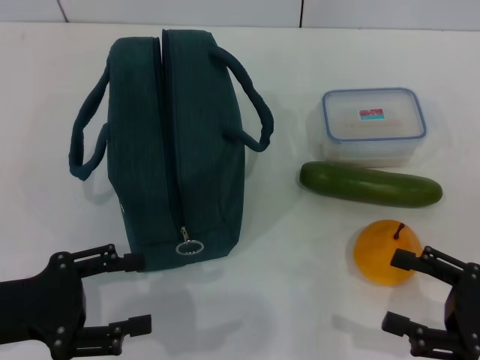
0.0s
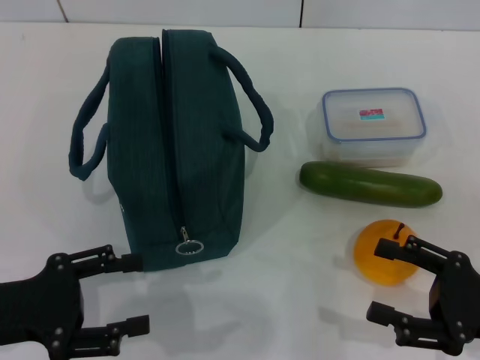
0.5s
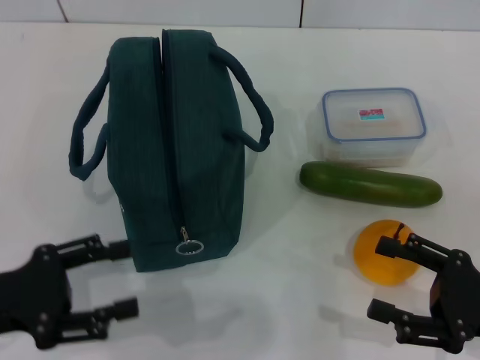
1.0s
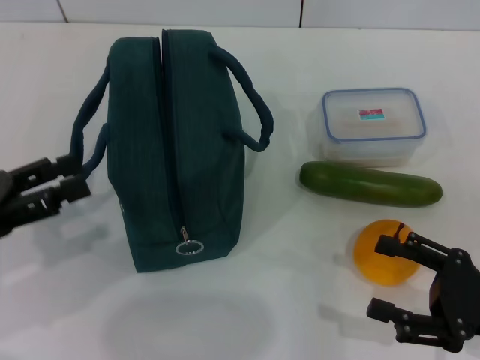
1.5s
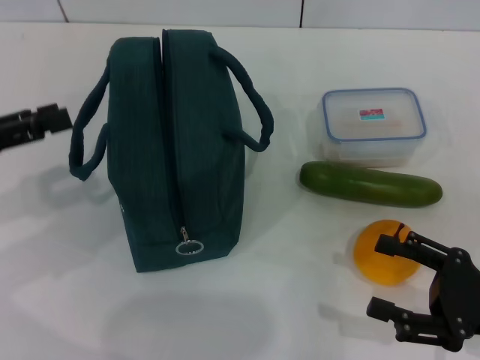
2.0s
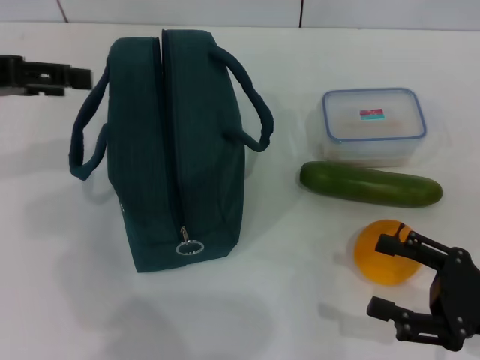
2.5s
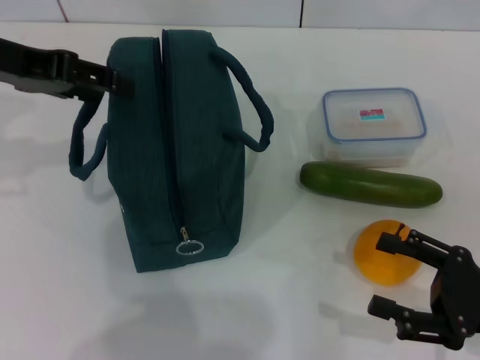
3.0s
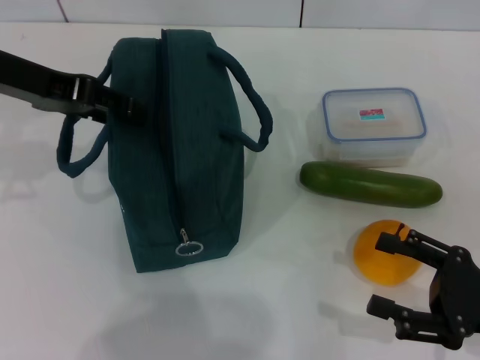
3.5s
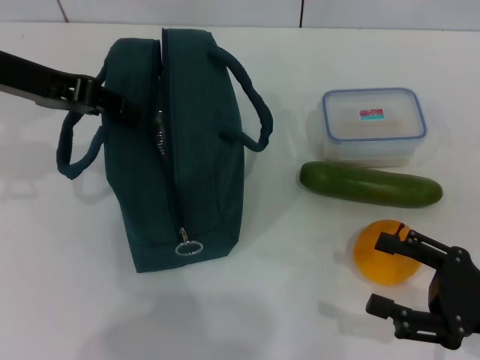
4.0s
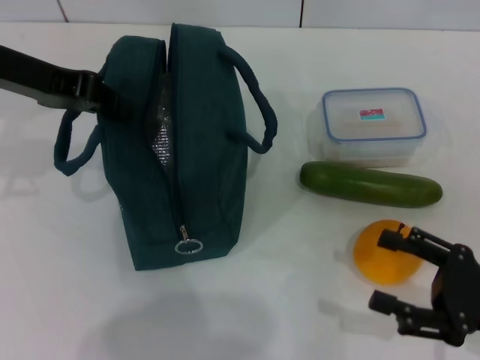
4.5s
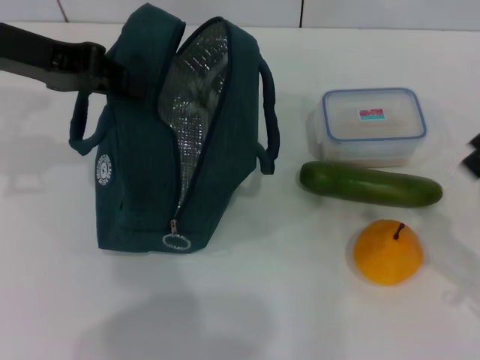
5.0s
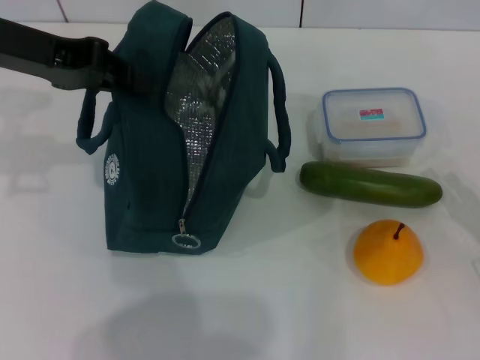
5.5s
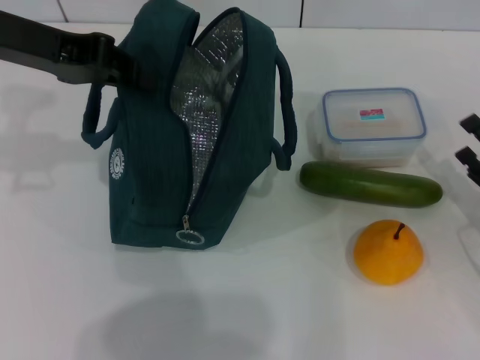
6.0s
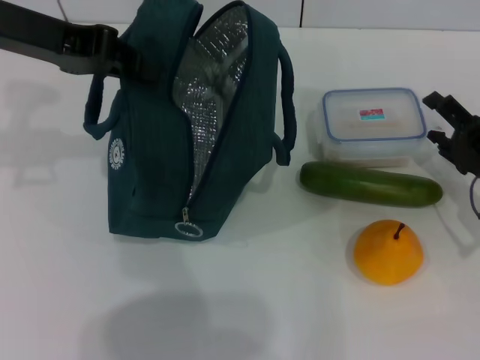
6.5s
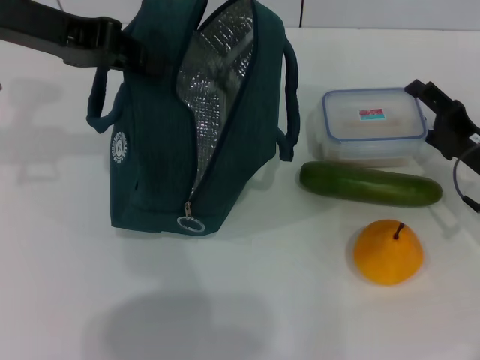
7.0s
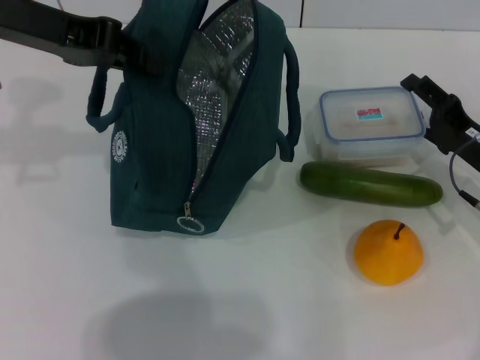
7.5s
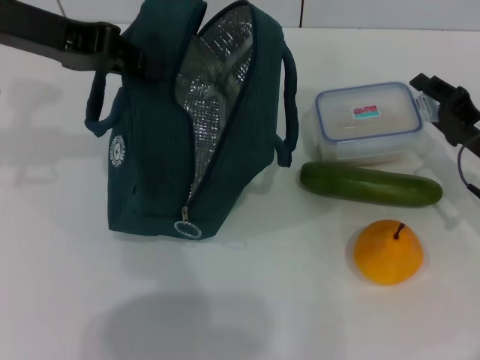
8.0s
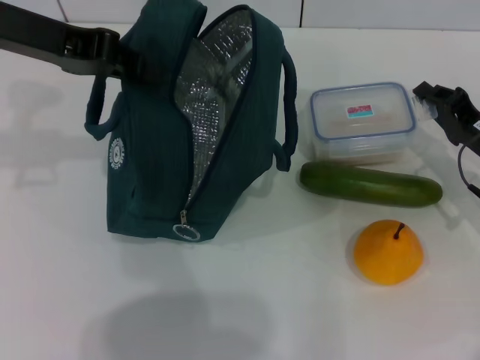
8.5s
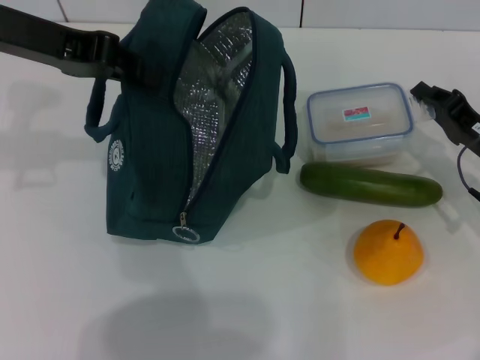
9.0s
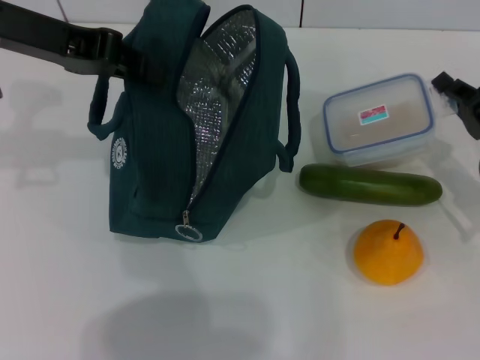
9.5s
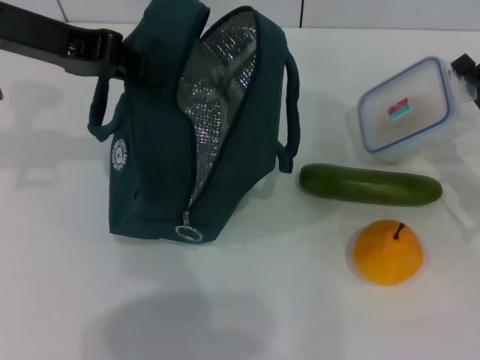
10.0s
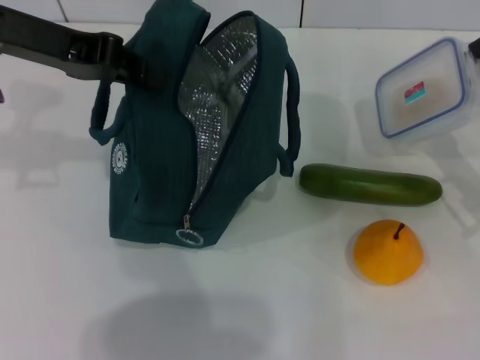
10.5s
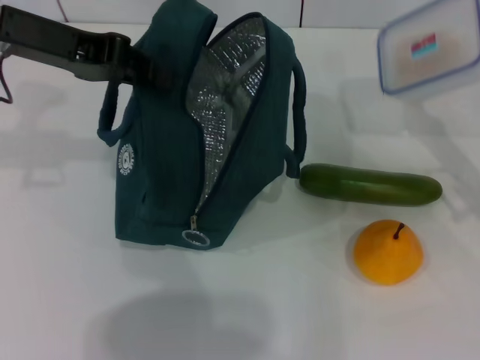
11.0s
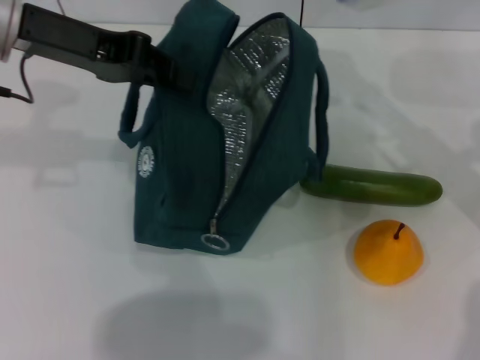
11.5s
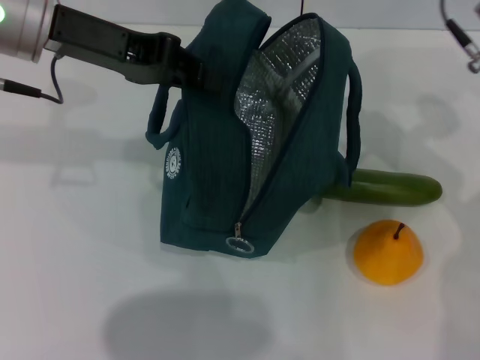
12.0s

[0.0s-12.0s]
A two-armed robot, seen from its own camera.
Step, 0.0s to 5.5s: Hold the lunch bag with your left hand.
Step, 6.0s to 9.0s: Pick up the lunch box with your right hand.
0.0s to 2.0s: The left gripper shifts some 10 cm upward, forward and to the left.
2.0s to 4.0s: The left gripper moves forward, to the right and upward, about 15 cm, and closes.
4.0s to 6.0s: The left gripper closes up. Meanwhile the right gripper shifts approximately 5 cm forward.
6.0s to 8.0s: The right gripper shifts approximately 10 cm forward.
8.0s to 10.0s: The right gripper closes up.
10.0s to 12.0s: The right gripper is displaced upward, to the left and forward by some 15 cm.

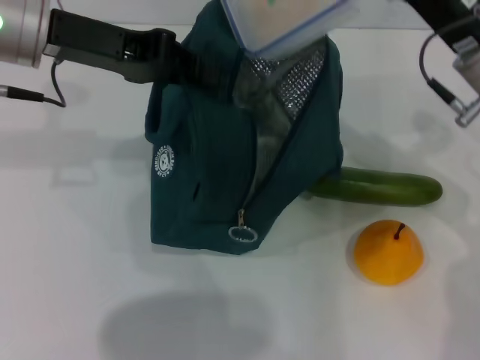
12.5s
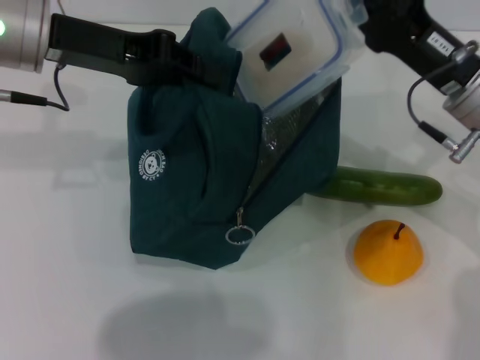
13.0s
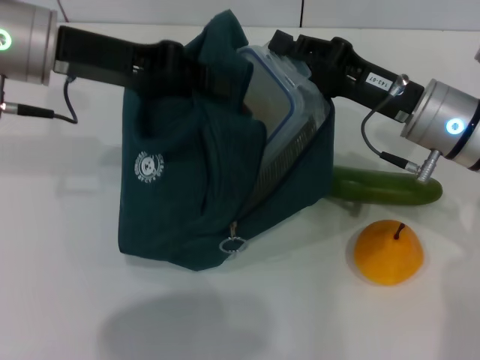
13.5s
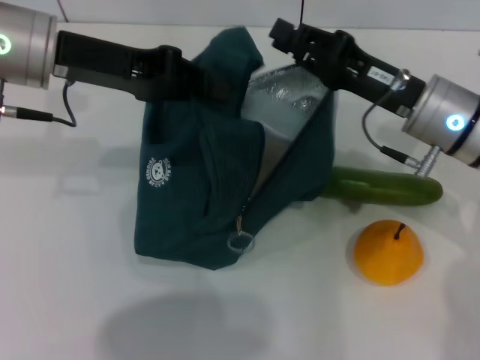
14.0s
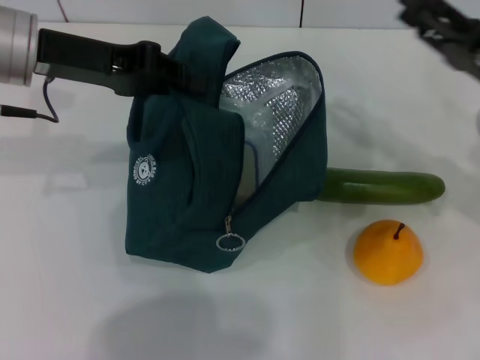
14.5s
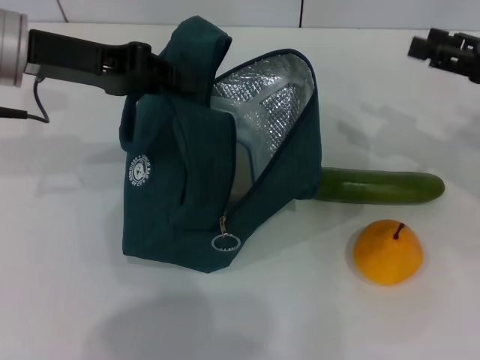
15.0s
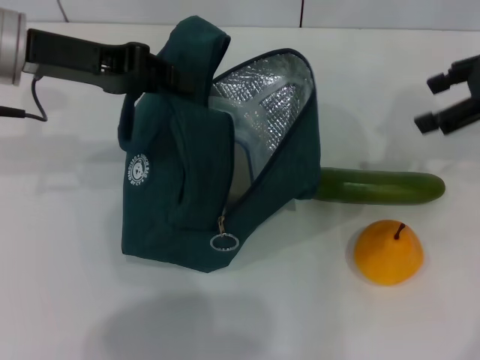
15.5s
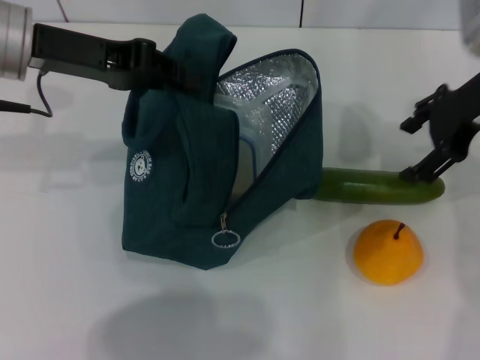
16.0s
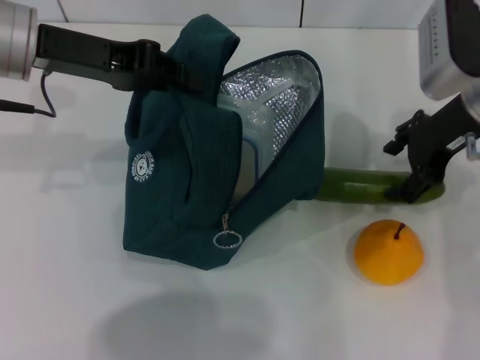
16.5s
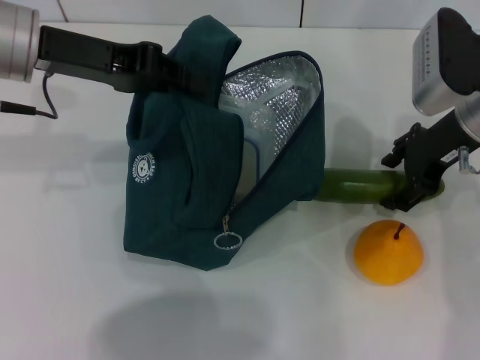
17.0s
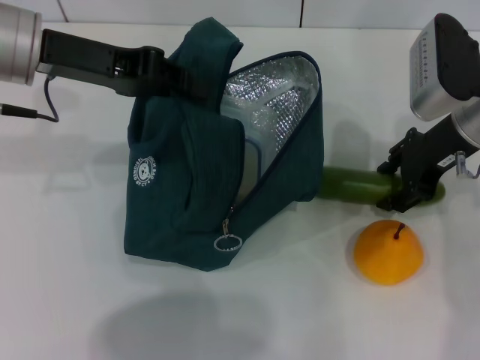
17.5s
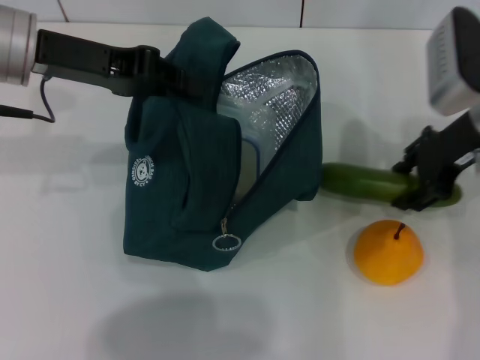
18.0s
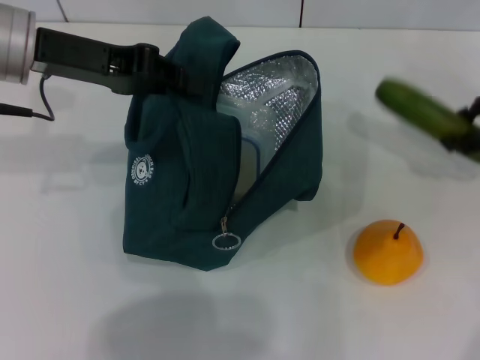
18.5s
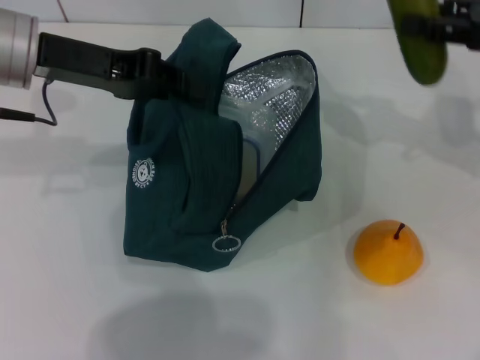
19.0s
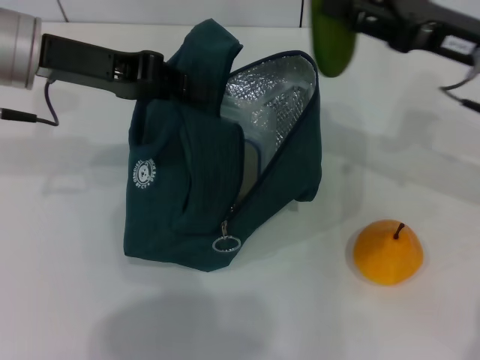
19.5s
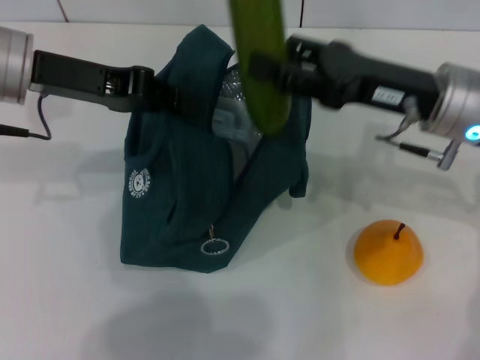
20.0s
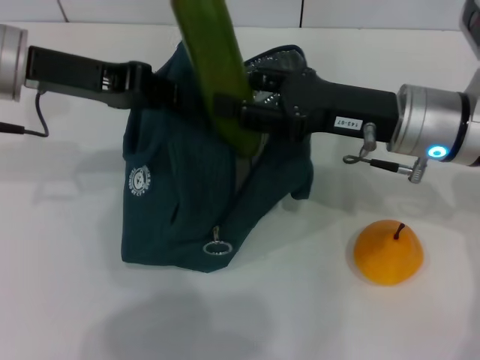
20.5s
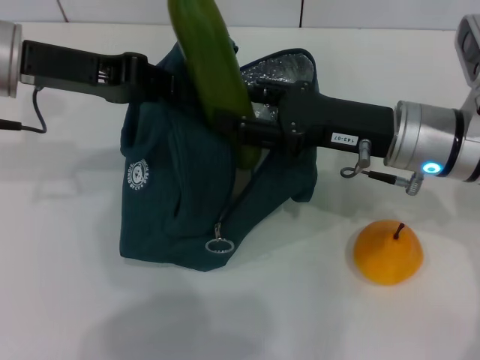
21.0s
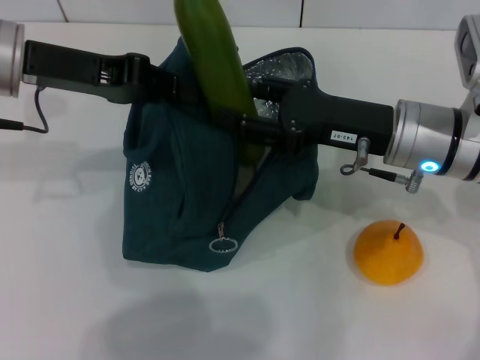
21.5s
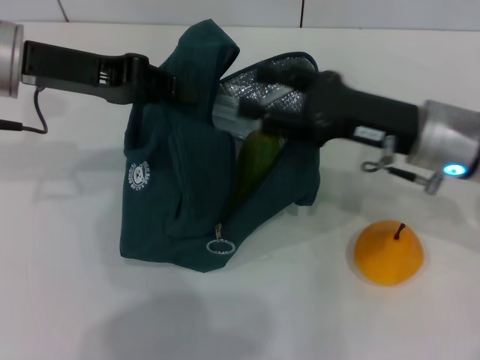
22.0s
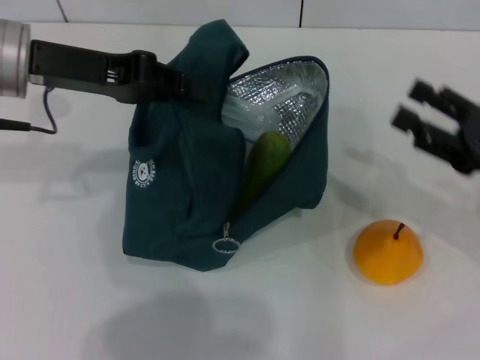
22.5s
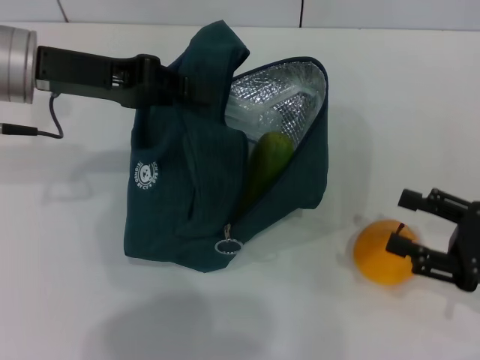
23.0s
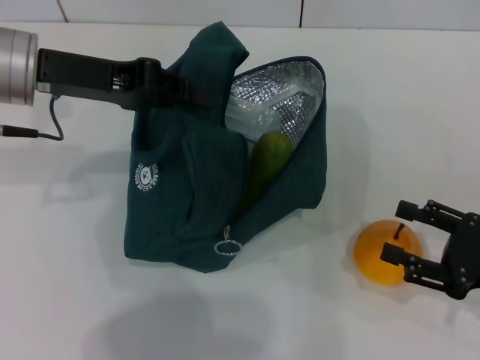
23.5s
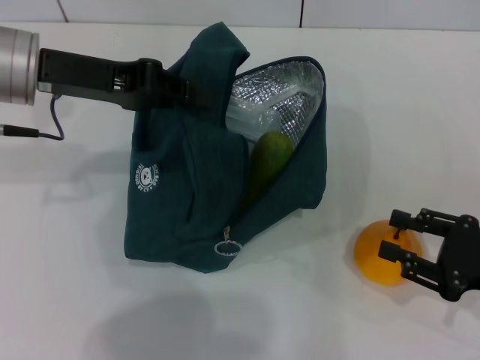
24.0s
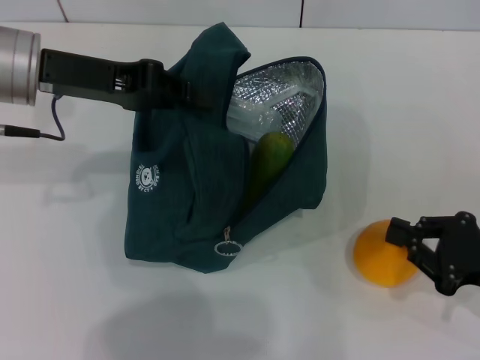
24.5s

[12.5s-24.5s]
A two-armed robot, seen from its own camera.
Step, 14.0s to 17.5s: Pick up the cucumber with your right hand.
Step, 18.0s to 21.5s: Put the cucumber into the lunch bag with your right hand.
12.5s to 14.5s: The right gripper shifts about 5 cm to the right, and opens its fingers.
14.5s to 16.5s: The right gripper moves forward, upward and to the left, some 10 cm.
16.5s to 18.5s: The right gripper shifts roughly 10 cm to the right.
18.5s to 20.5s: The right gripper heads to the left, covering about 15 cm.
20.5s to 22.5s: The right gripper moves to the right and backward, some 15 cm.
22.5s to 24.5s: The right gripper is displaced downward by roughly 5 cm, and closes up.

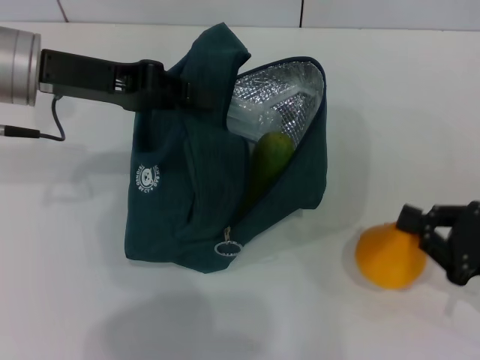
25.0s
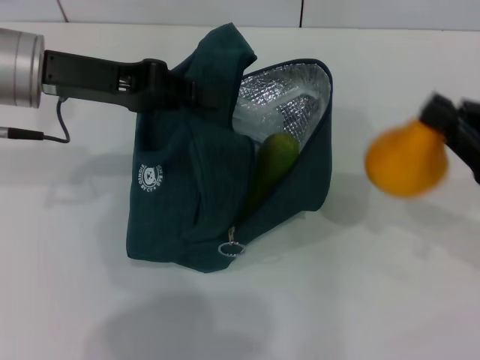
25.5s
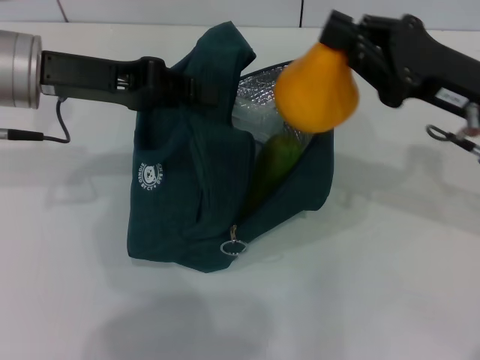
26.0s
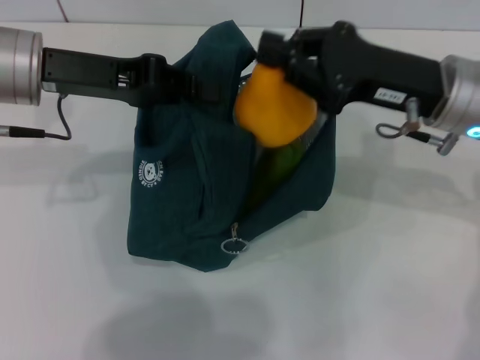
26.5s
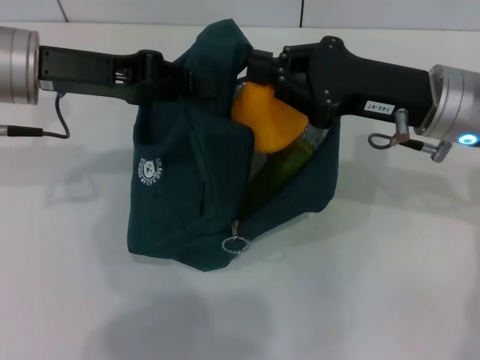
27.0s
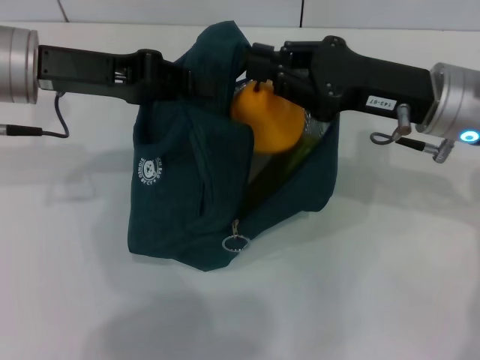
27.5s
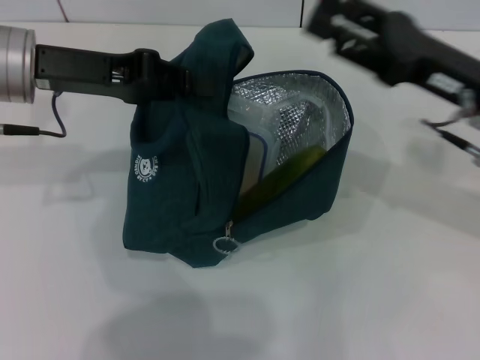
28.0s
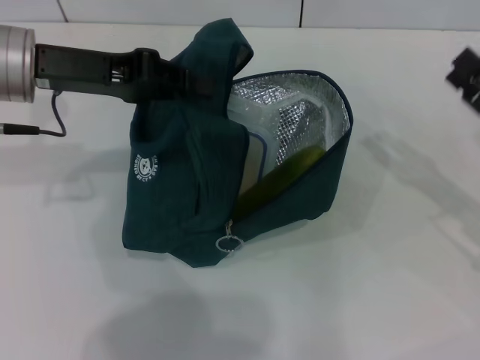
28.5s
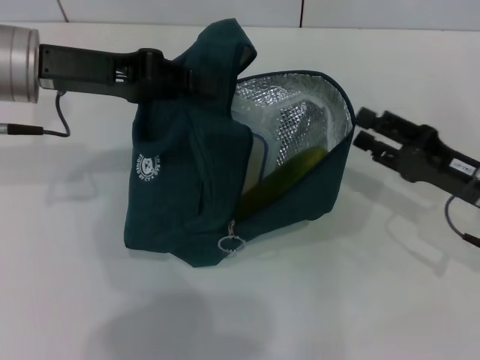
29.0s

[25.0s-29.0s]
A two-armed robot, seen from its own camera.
25.0s to 27.0s: The right gripper travels to the left, forward and upward by roughly 20 cm.
27.0s to 29.0s: The right gripper is displaced downward and to the right by about 15 cm, and opens up.
